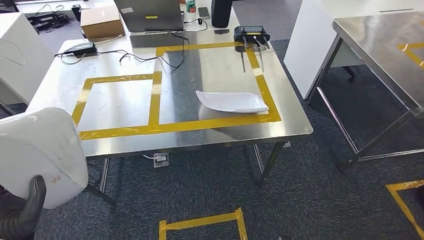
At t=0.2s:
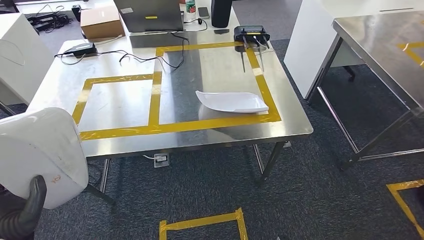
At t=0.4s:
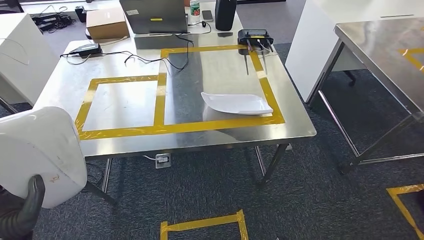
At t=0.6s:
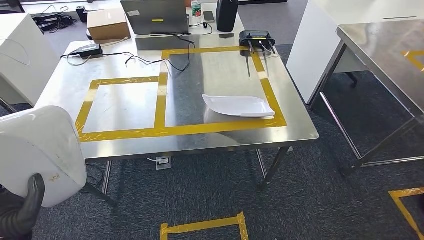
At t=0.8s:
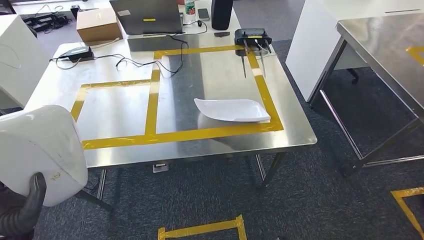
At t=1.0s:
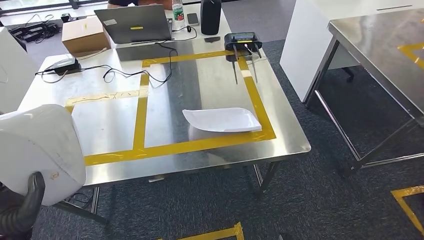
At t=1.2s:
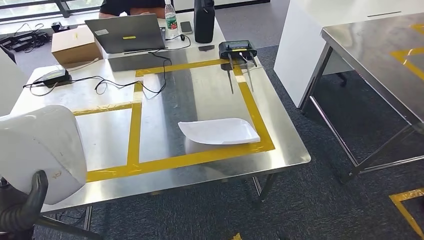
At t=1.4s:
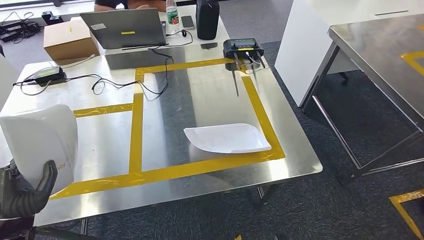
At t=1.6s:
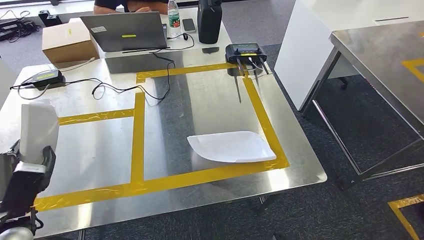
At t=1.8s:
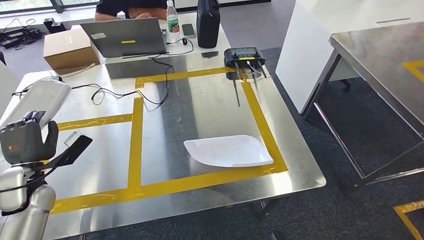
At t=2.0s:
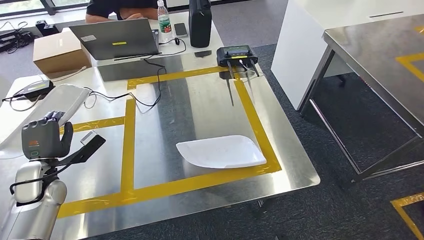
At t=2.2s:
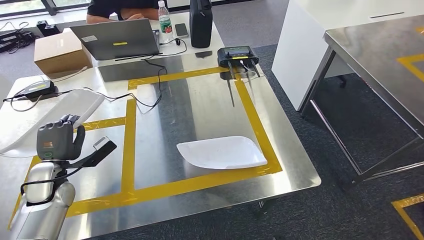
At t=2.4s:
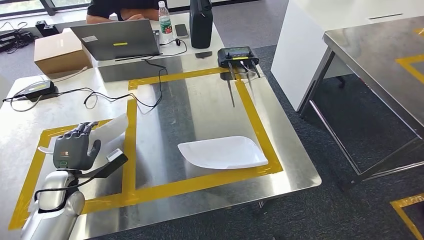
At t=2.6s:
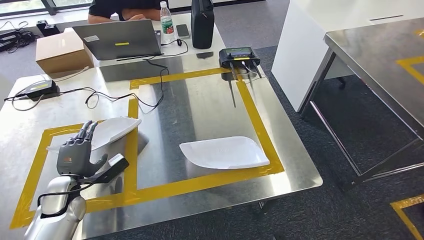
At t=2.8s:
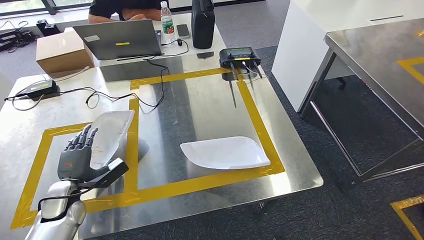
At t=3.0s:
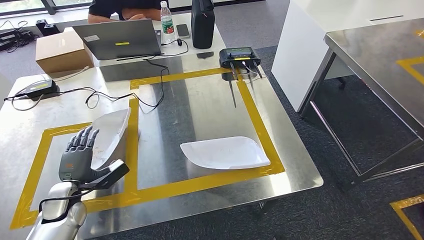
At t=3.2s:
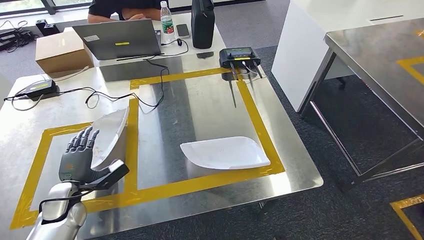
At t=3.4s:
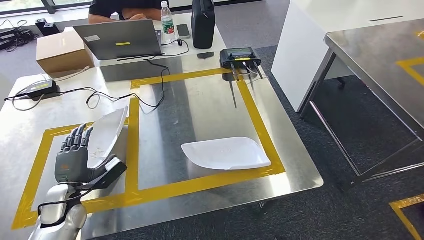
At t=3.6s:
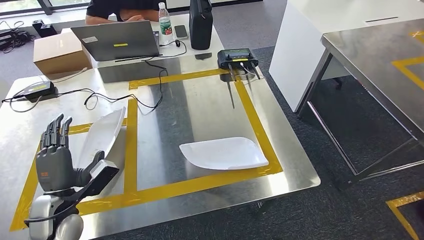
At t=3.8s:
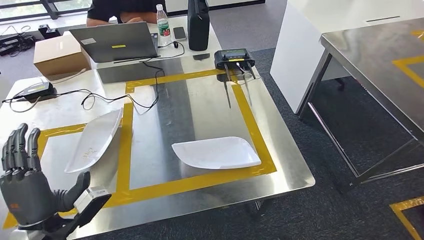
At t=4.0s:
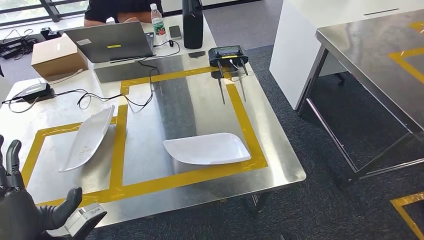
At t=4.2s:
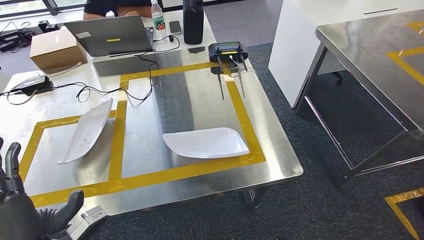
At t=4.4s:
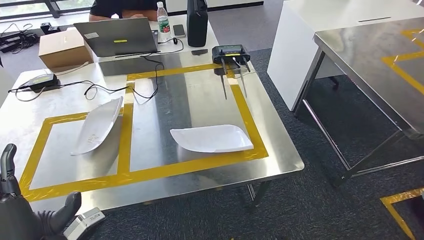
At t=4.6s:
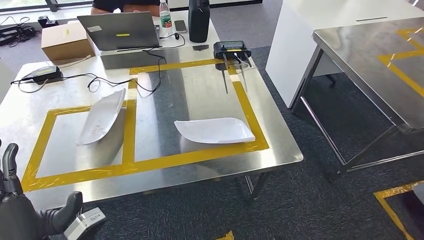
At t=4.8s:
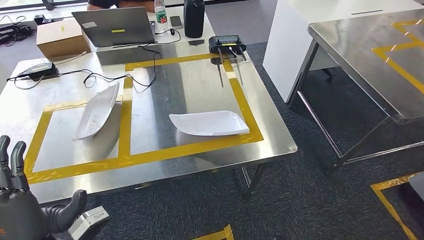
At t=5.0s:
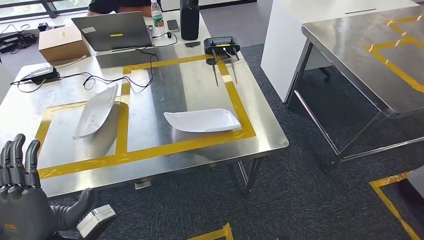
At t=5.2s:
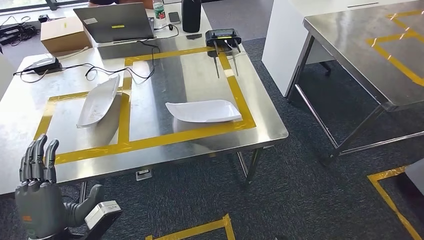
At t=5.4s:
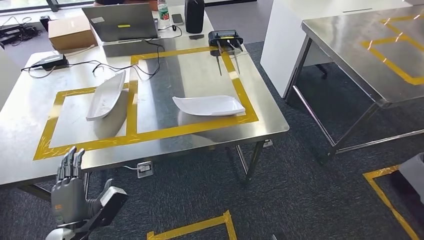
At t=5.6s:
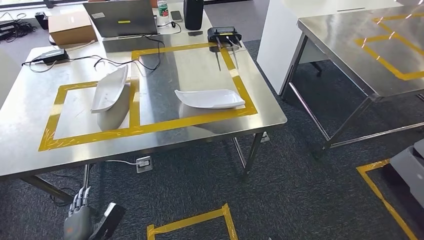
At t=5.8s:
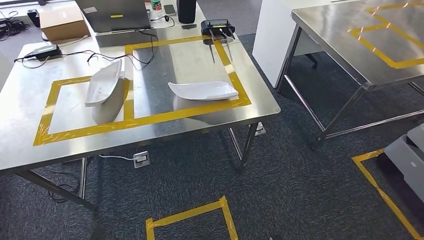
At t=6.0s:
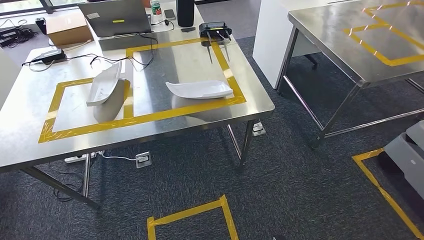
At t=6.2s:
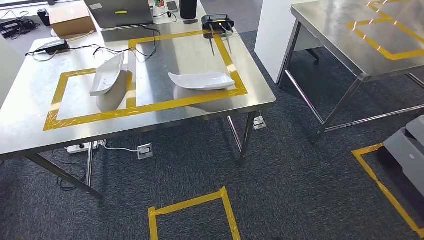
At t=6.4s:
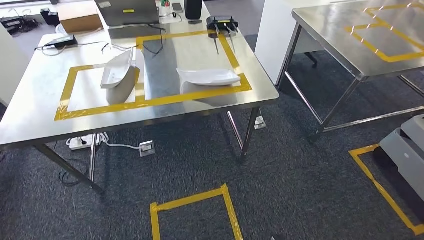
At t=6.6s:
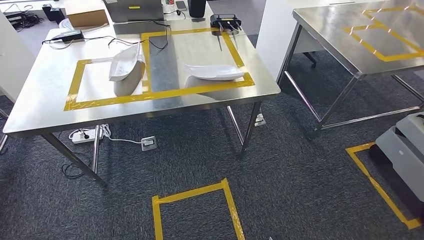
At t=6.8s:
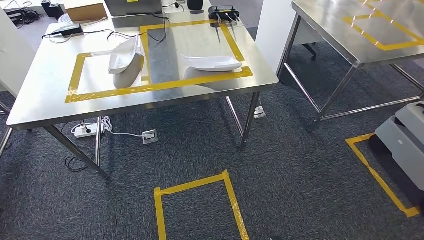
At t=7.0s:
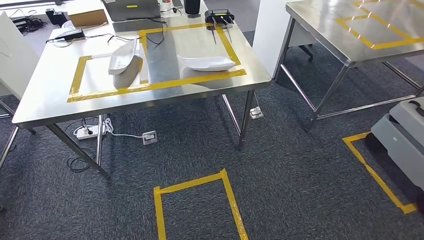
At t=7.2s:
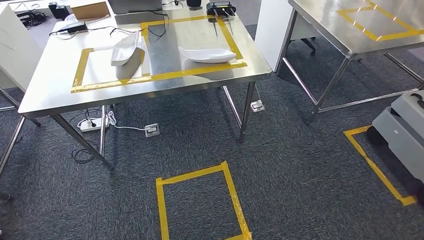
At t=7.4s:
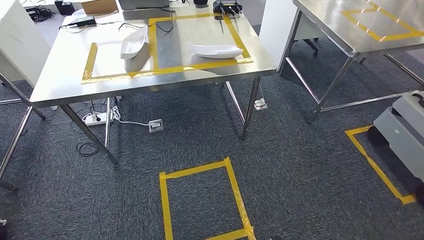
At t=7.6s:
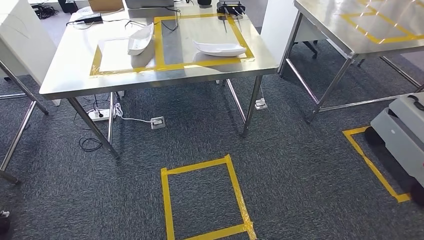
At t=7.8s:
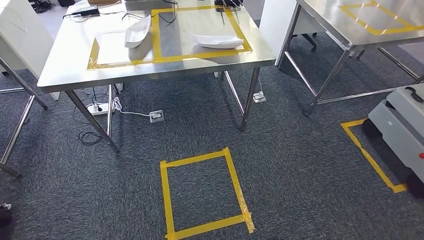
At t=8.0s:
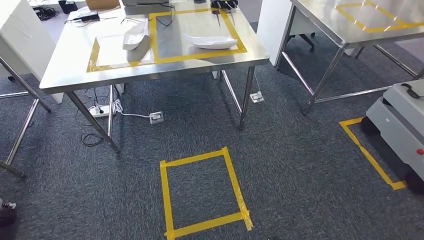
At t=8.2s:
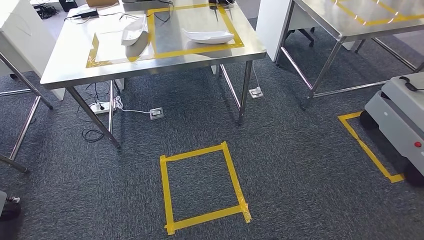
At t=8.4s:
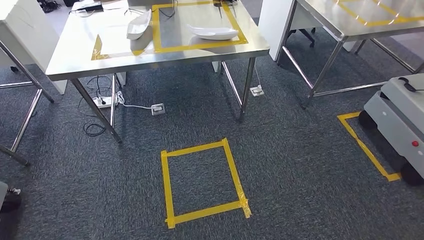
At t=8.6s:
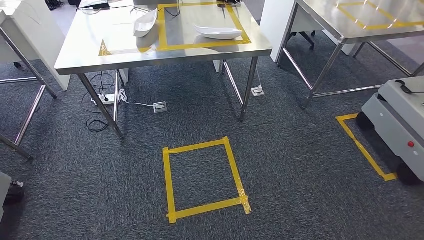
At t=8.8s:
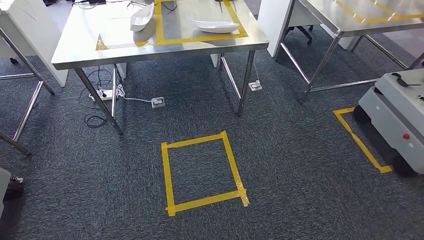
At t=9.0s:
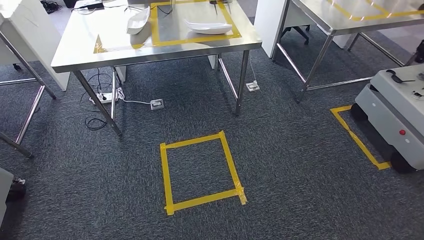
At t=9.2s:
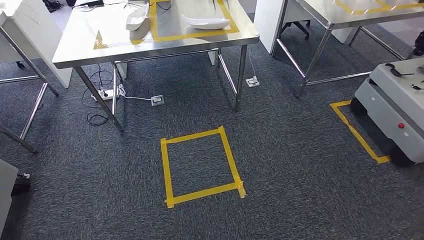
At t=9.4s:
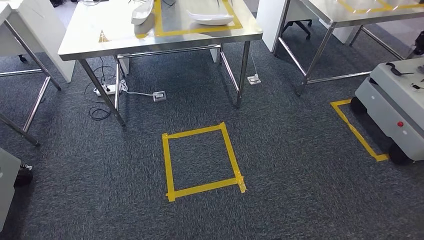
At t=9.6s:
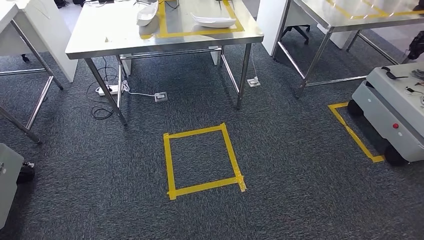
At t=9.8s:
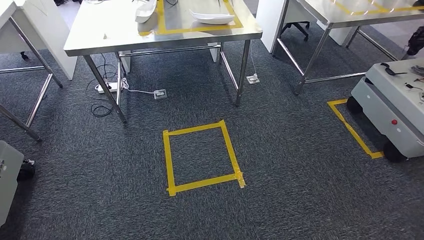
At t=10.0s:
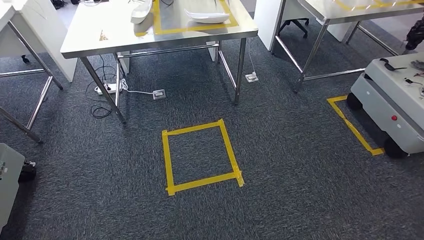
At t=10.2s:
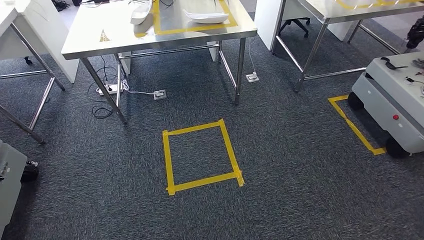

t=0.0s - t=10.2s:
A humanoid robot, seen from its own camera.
Step, t=0.0s - t=4.2s: Insert the small parts into the corresponding holes on the workbench.
Step, t=4.4s - t=10.2s: Move to the initial position of the workbench.
